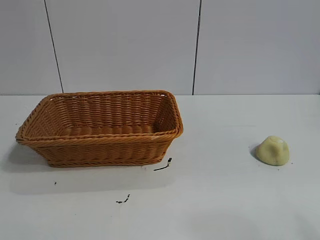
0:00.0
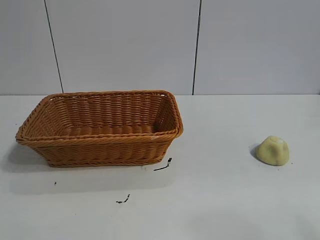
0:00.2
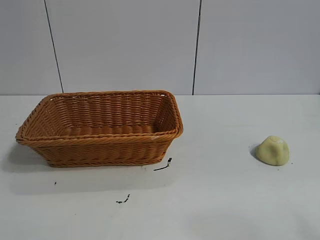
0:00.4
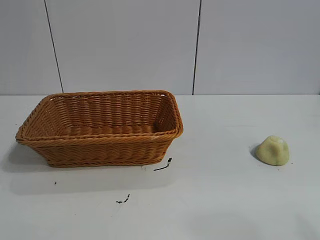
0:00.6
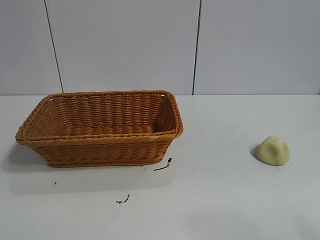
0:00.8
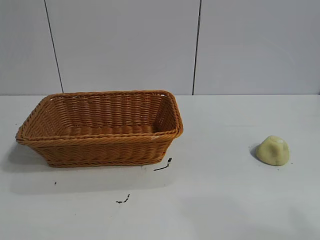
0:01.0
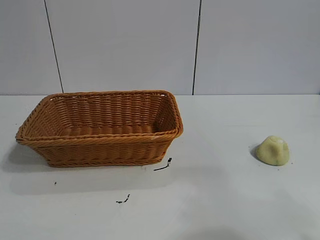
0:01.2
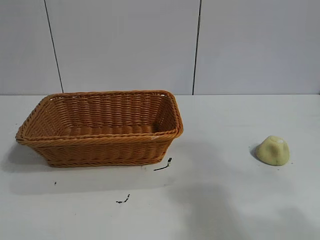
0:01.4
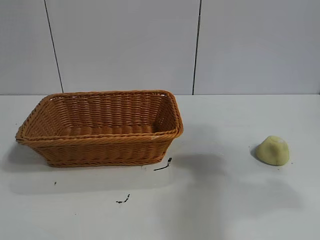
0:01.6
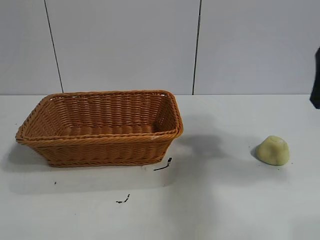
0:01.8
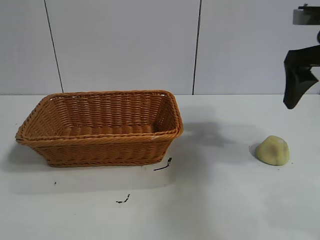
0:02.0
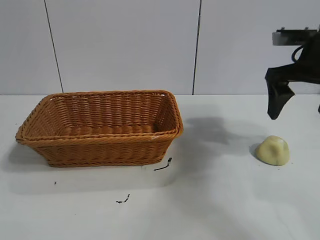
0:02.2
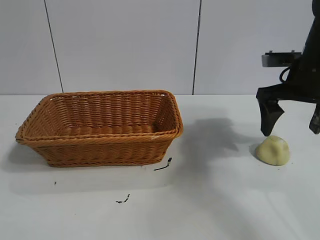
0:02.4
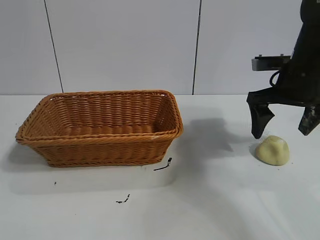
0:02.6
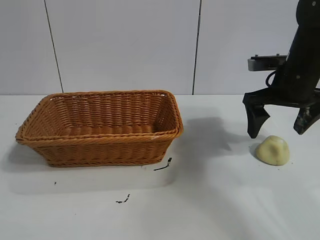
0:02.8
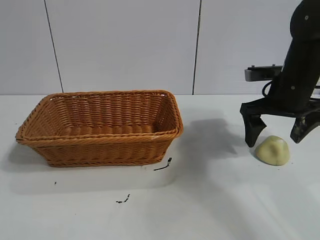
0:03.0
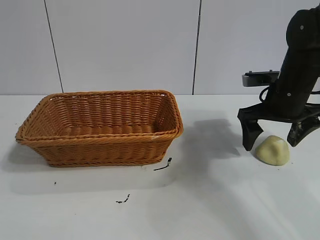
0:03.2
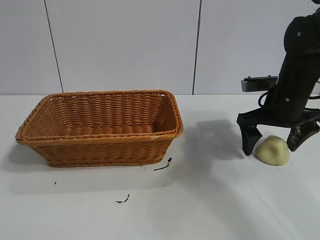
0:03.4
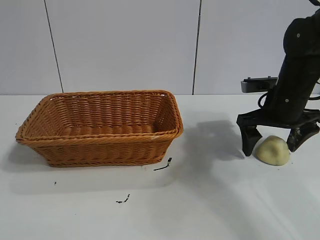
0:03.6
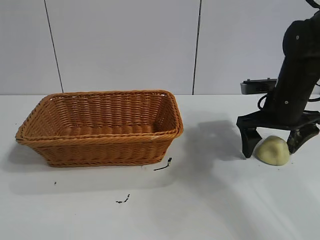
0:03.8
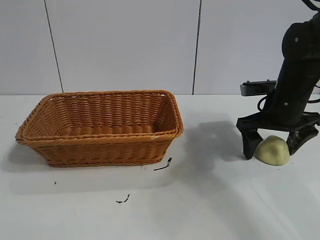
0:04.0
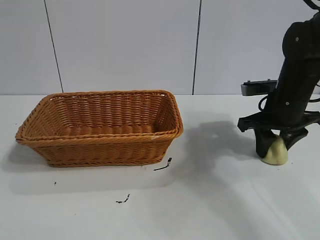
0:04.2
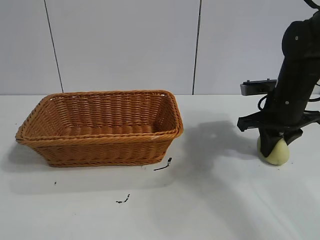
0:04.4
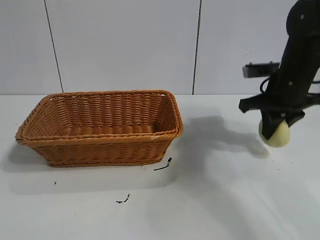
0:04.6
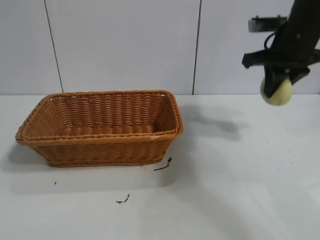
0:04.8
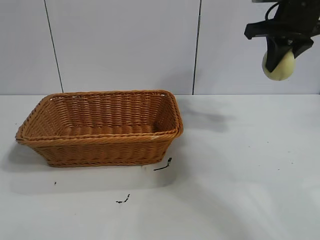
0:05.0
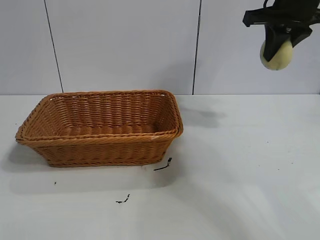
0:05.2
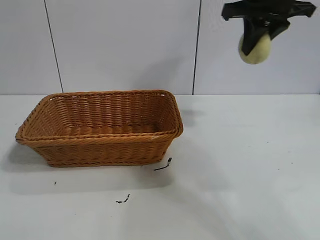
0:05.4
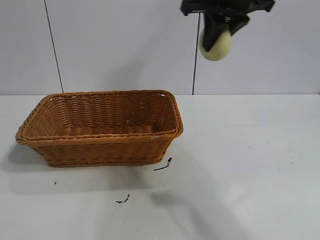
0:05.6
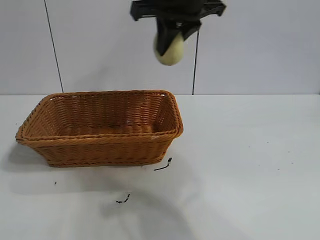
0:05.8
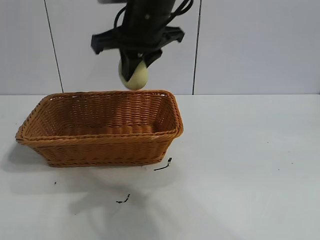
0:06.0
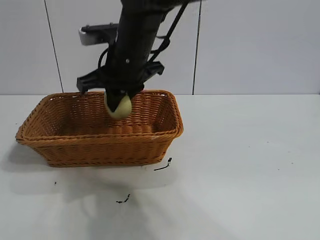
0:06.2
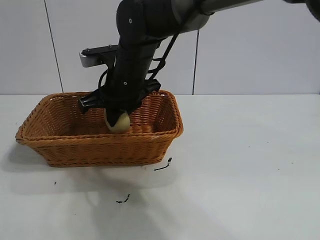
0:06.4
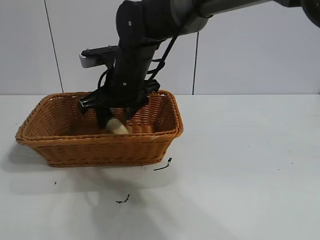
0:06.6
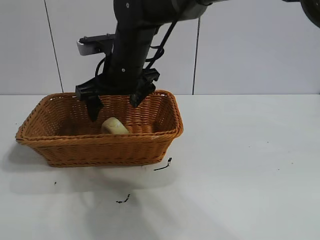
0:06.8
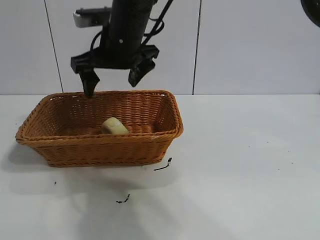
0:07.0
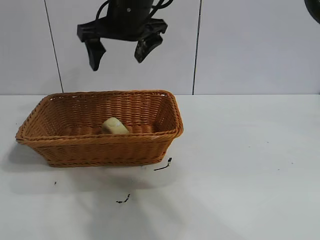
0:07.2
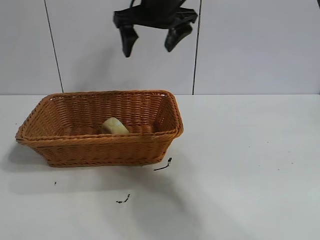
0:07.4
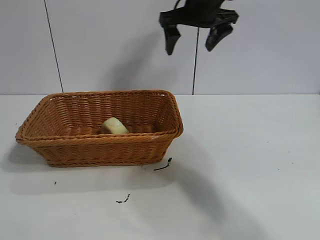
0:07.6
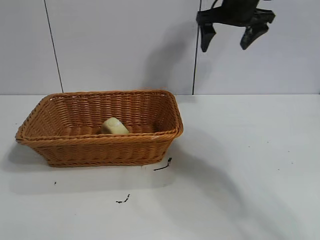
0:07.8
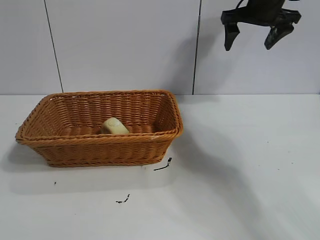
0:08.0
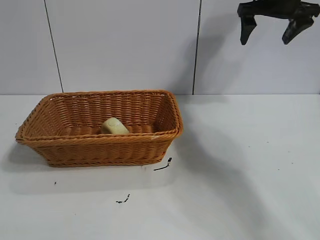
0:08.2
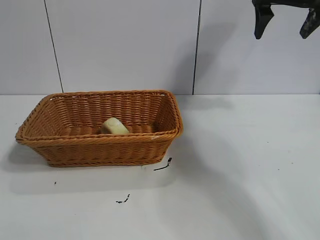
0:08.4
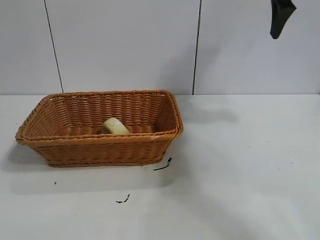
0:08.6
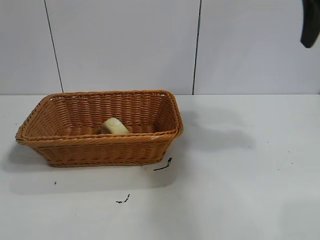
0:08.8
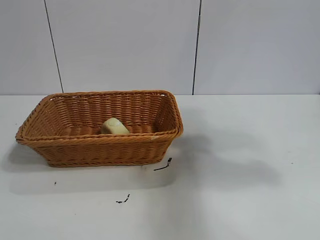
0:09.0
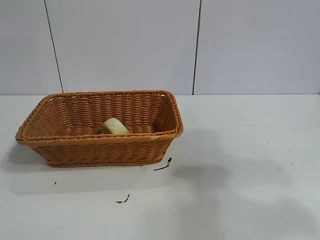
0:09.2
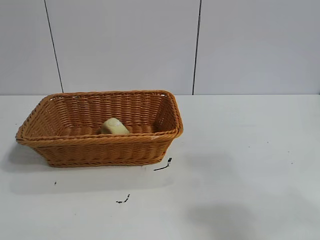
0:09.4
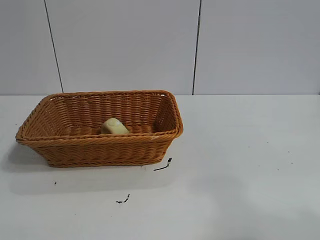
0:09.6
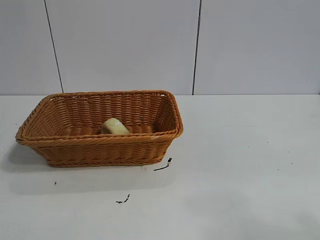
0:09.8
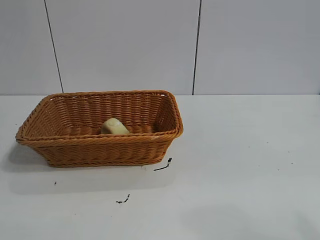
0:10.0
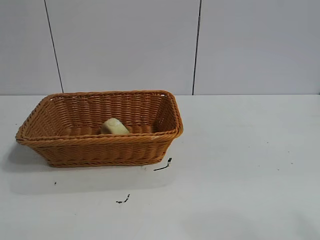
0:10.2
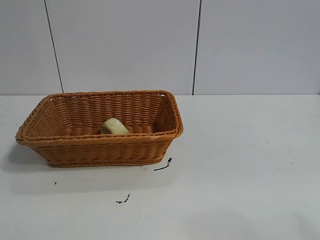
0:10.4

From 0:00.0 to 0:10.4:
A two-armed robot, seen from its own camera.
Task of the whole recording: pick up the egg yolk pastry and put it into the basket.
Step, from 0:01.0 to 0:04.2: Grasp egg yolk pastry with right gripper.
Step, from 0:04.4 to 0:06.6: Place the egg yolk pastry in the basket with right gripper.
